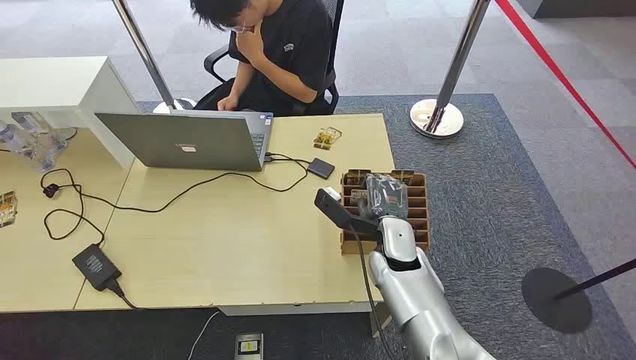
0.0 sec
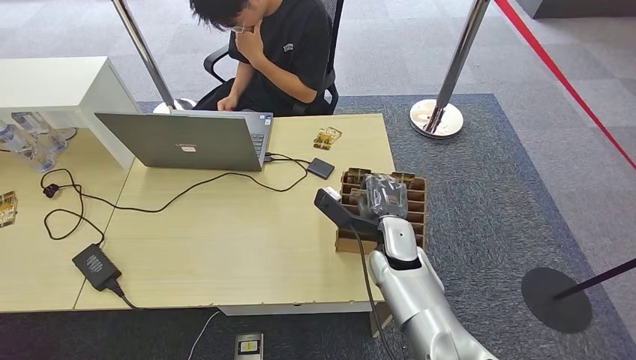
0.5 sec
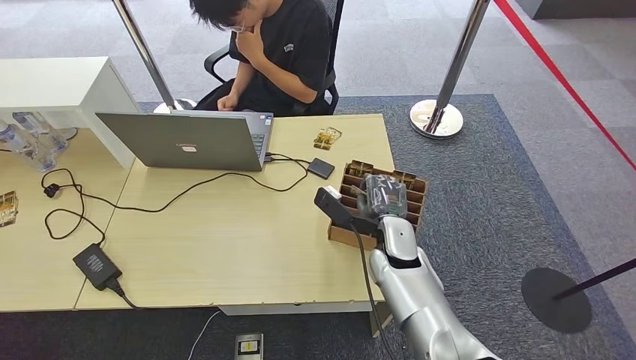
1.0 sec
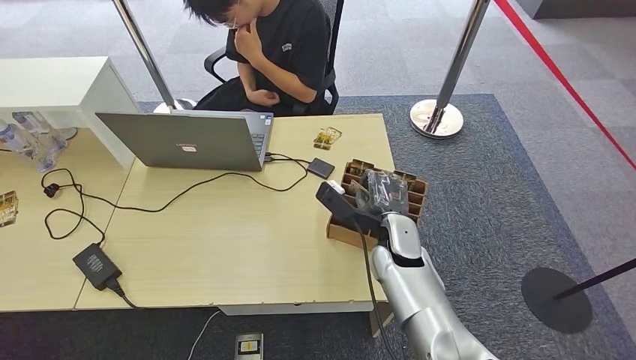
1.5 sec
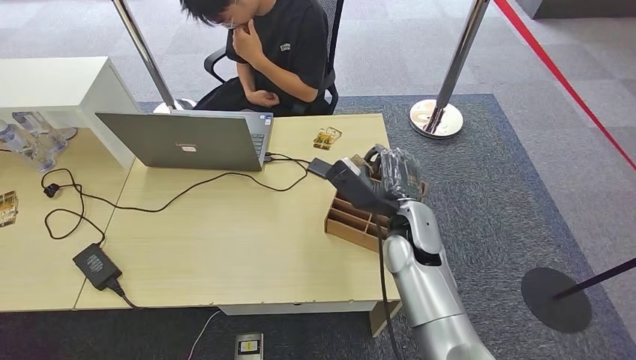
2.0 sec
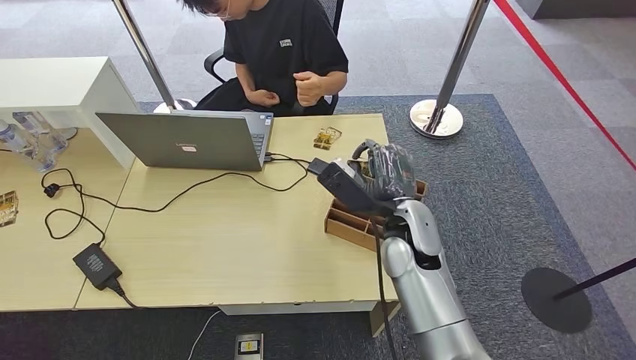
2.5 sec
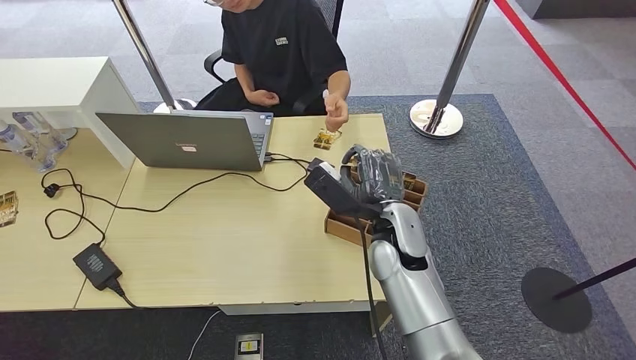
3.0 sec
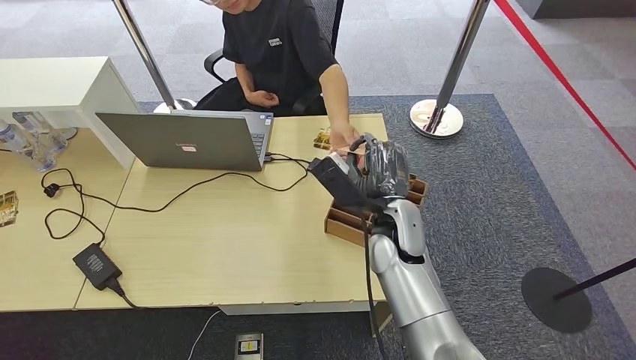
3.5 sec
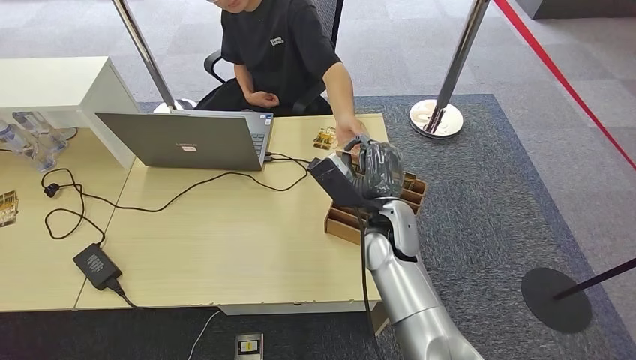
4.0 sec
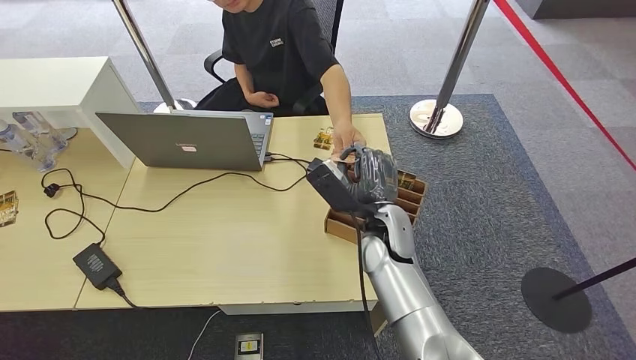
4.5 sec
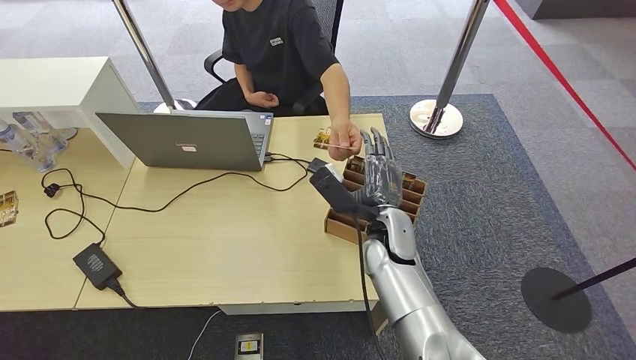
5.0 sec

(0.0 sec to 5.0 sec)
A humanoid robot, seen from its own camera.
Step, 0.0 sec - 3.0 sec: Pick up the room card from the card holder.
Step, 3.5 sec - 5.0 sec: Hand the room card to the target.
2.5 sec - 5.0 sec: There are only small adjustments of the hands.
